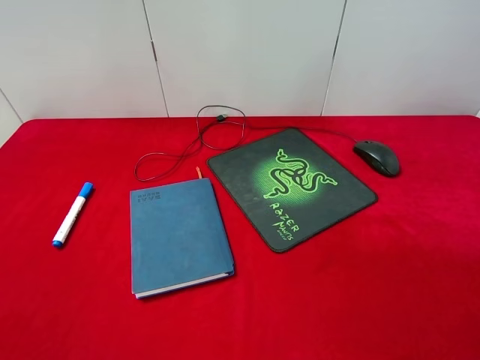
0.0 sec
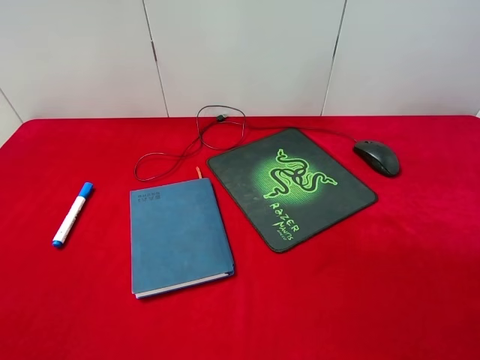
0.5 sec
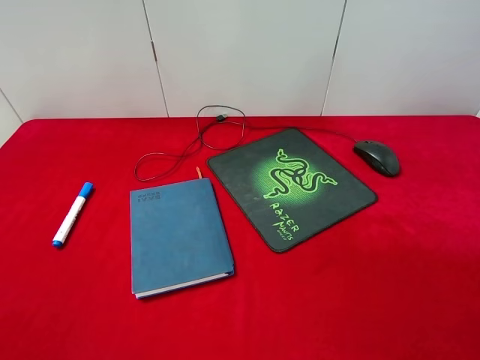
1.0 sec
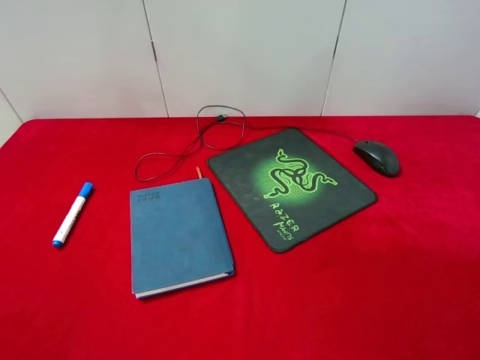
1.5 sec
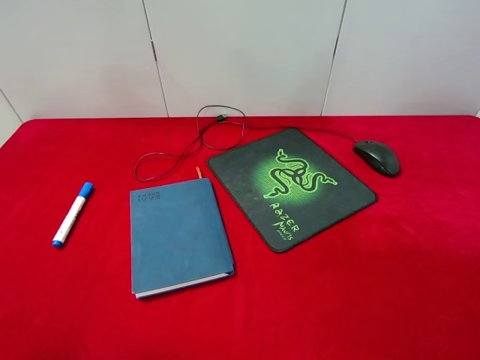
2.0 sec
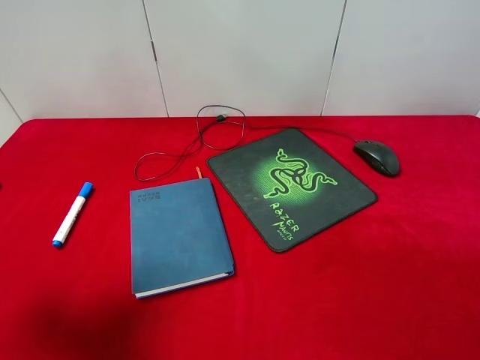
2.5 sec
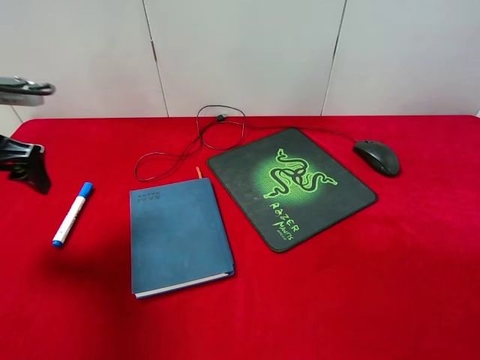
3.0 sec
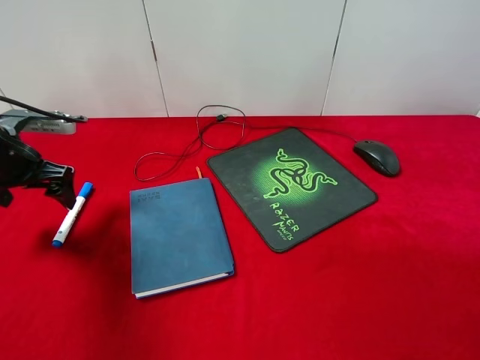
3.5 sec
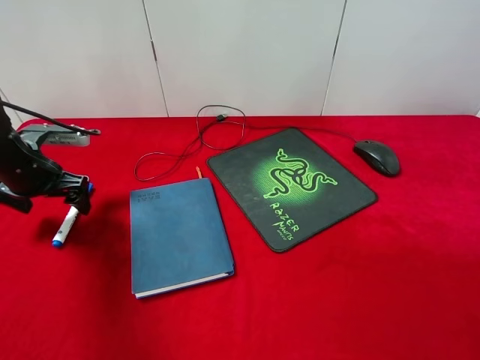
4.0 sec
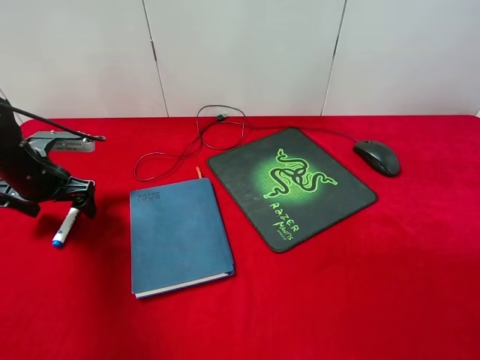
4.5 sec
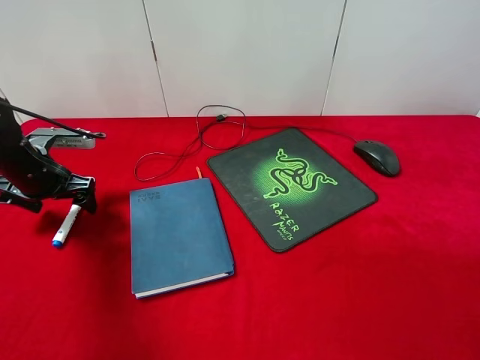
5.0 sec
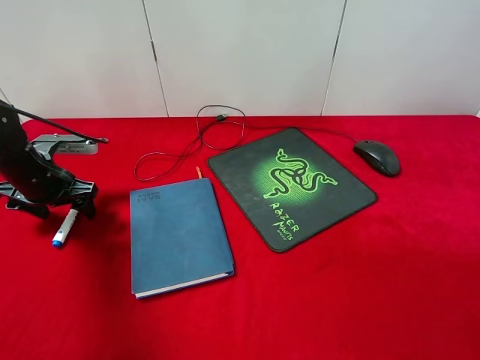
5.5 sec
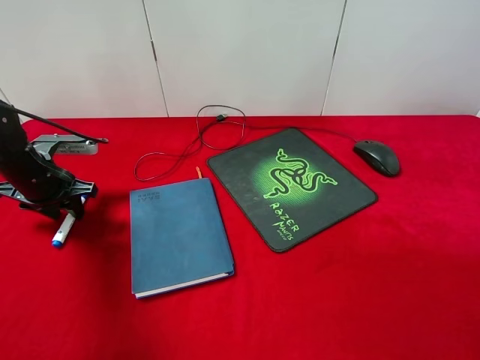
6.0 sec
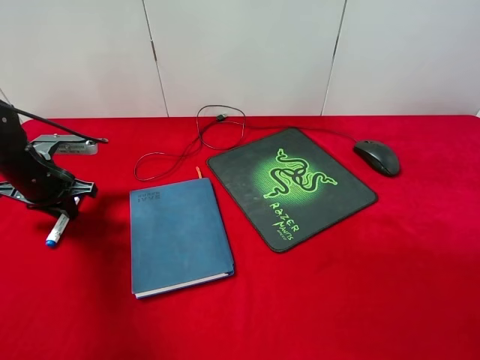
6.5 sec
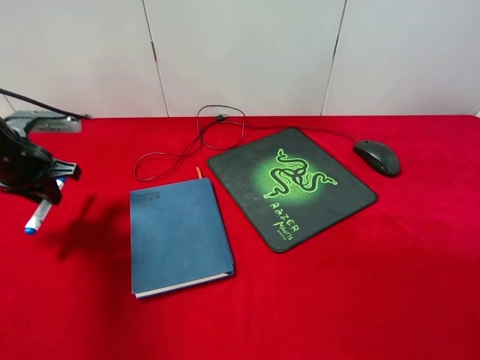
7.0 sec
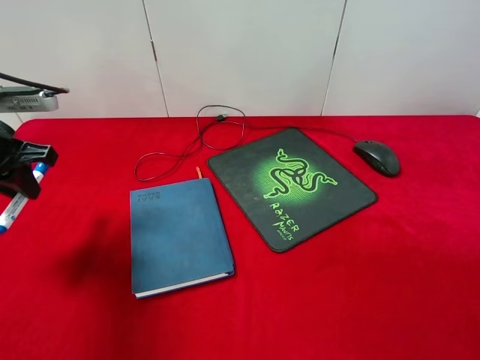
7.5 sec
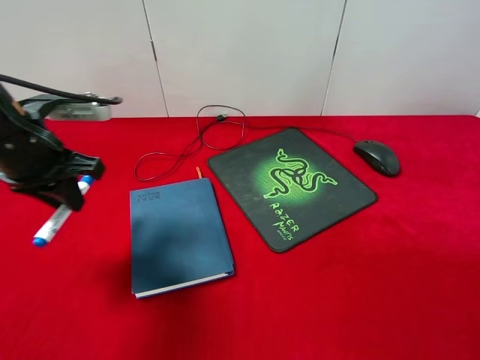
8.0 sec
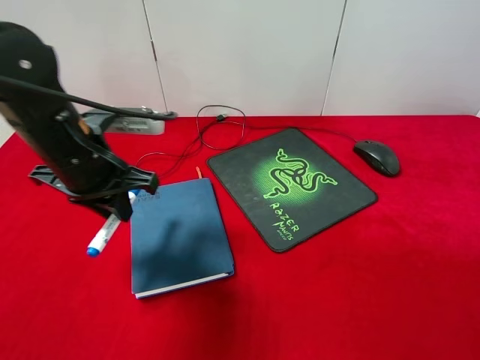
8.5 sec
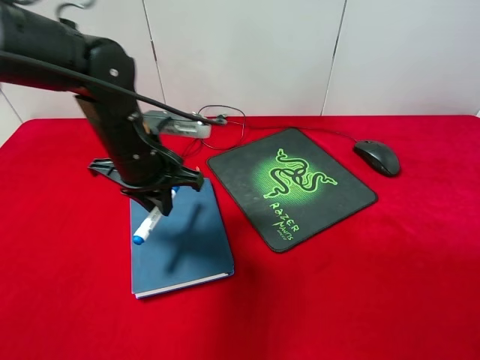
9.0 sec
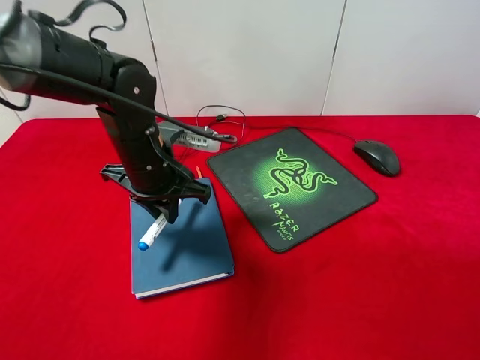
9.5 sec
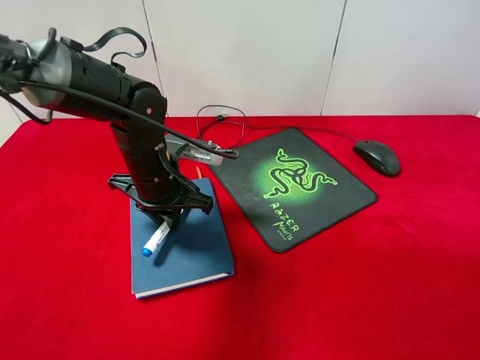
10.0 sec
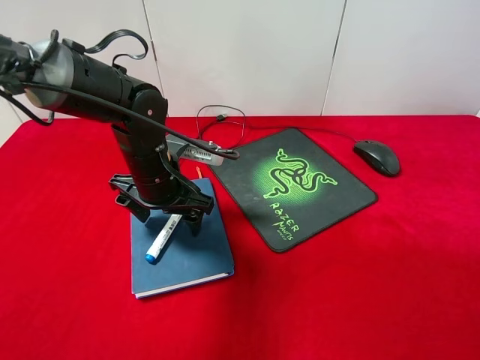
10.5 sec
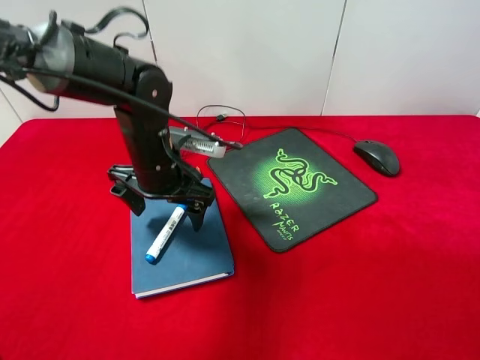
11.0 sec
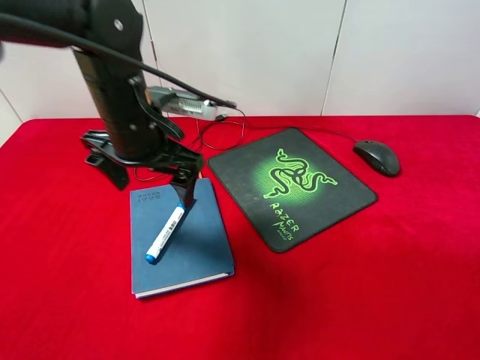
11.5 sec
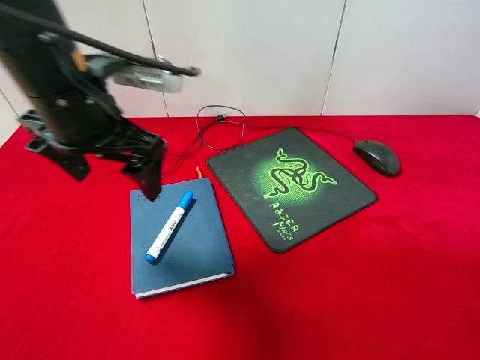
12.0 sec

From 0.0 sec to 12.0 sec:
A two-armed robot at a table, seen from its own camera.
Step, from 0.0 sec to 6.5 sec: Pick up the marker pen with left gripper.
Step, from 7.0 sec to 10.5 sec: Place the marker pen on the notebook with left gripper.
From 2.0 sec to 4.0 sec: The left gripper shifts roughly 30 cm forward and downward.
From 4.0 sec to 6.0 sec: The left gripper closes its fingers.
From 6.0 sec to 8.0 sec: The left gripper travels upward, to the right and backward by about 15 cm.
From 8.0 sec to 10.0 sec: The left gripper travels to the right and downward by roughly 15 cm.
From 10.0 sec to 12.0 sec: The left gripper heads upward and backward, covering approximately 15 cm, and opens its fingers.

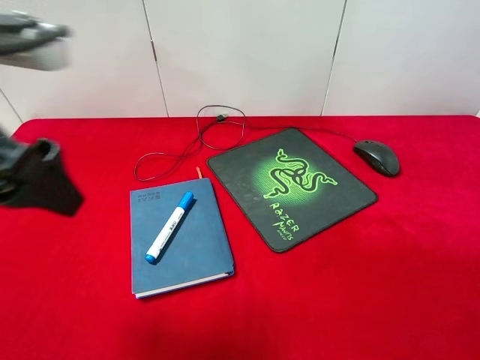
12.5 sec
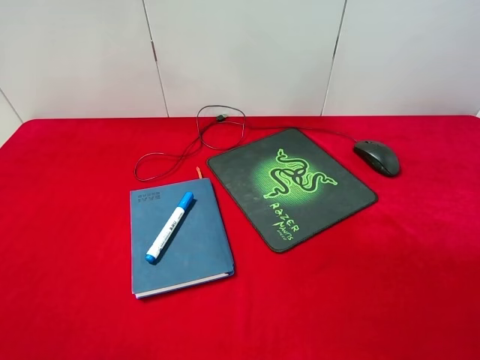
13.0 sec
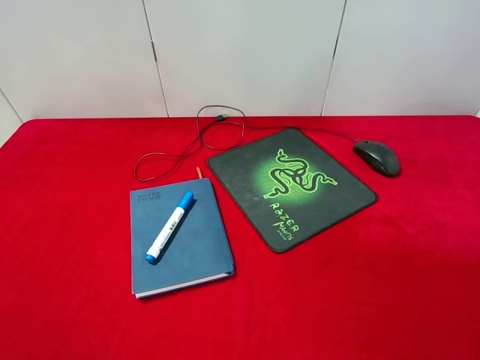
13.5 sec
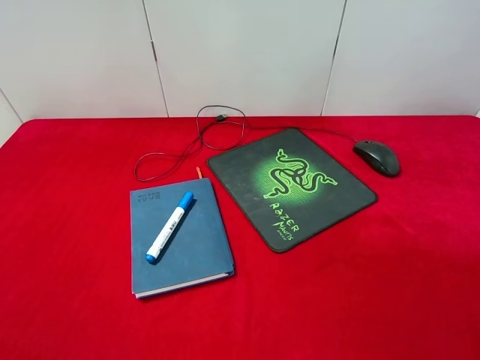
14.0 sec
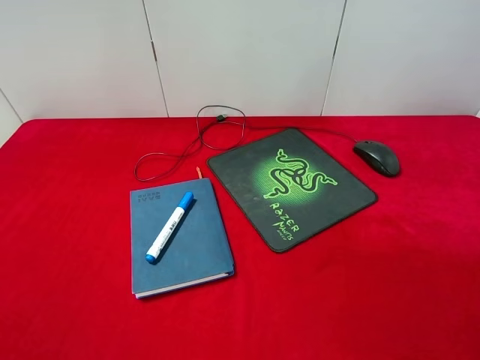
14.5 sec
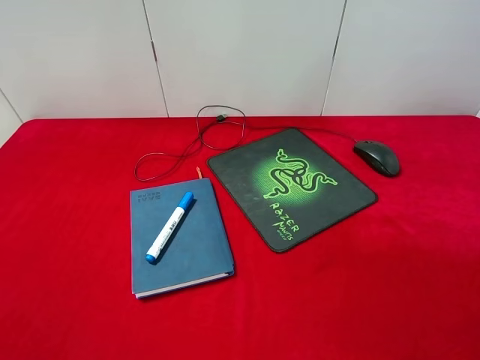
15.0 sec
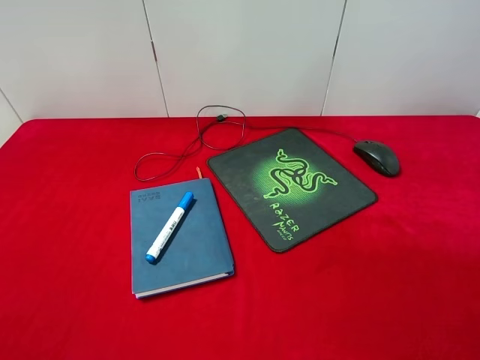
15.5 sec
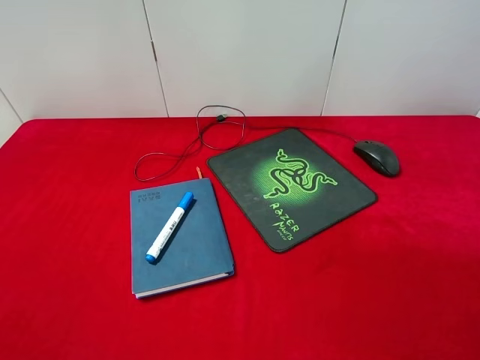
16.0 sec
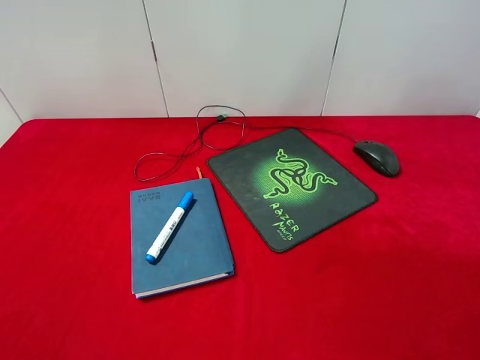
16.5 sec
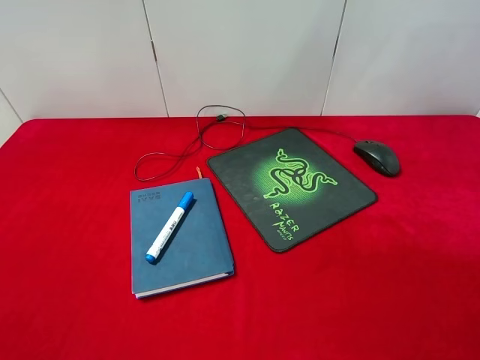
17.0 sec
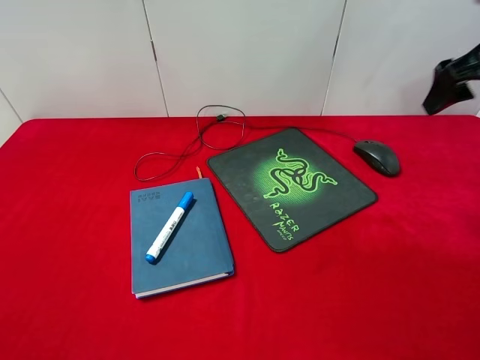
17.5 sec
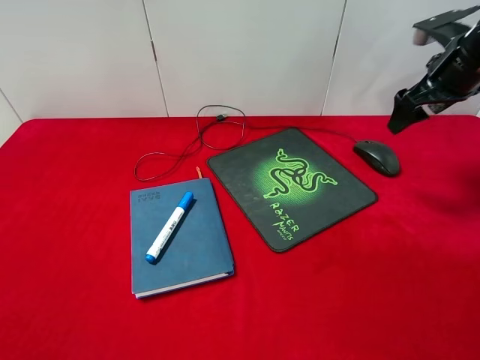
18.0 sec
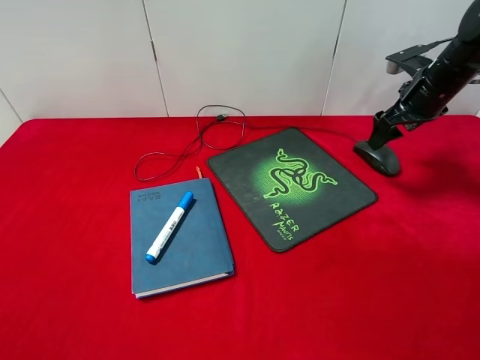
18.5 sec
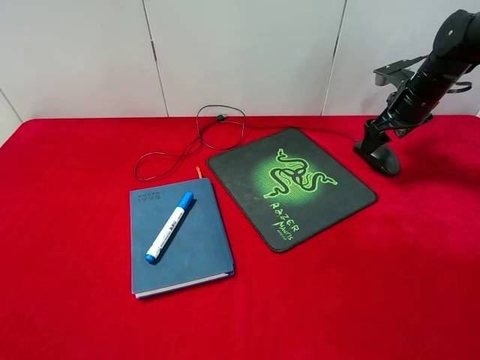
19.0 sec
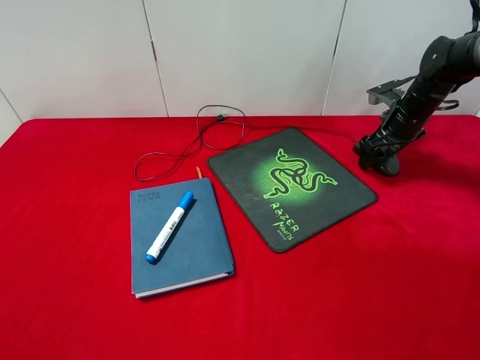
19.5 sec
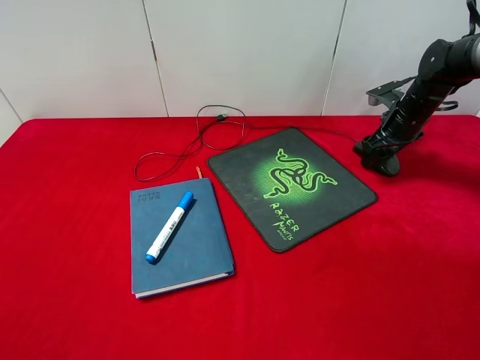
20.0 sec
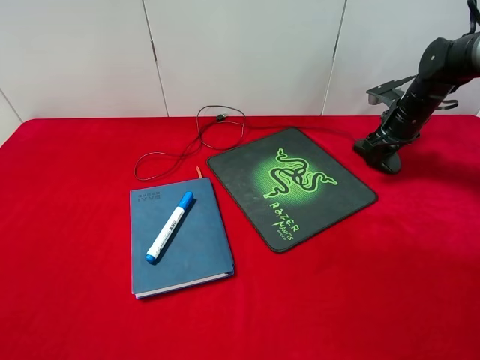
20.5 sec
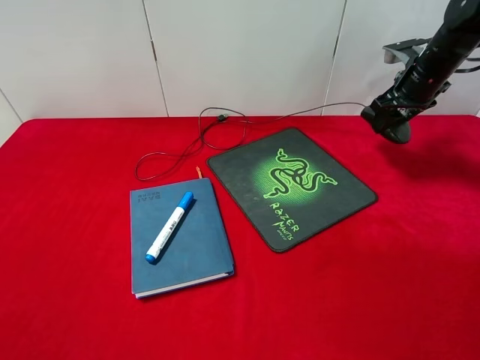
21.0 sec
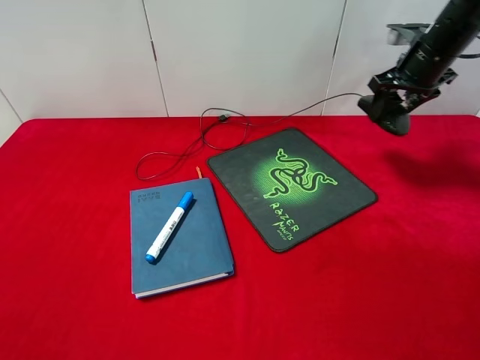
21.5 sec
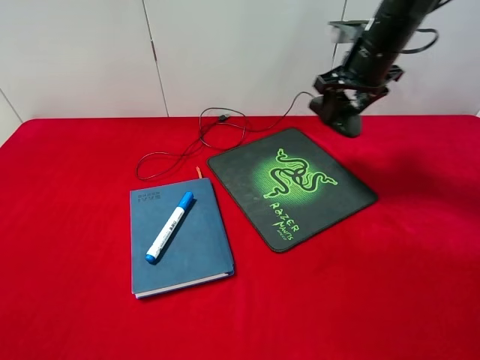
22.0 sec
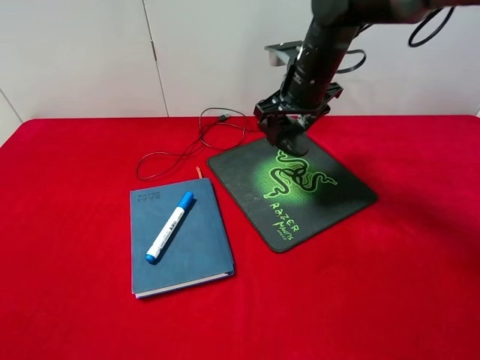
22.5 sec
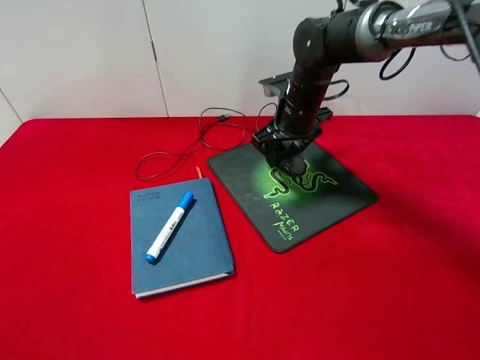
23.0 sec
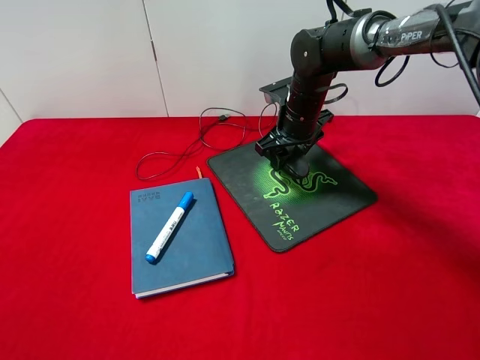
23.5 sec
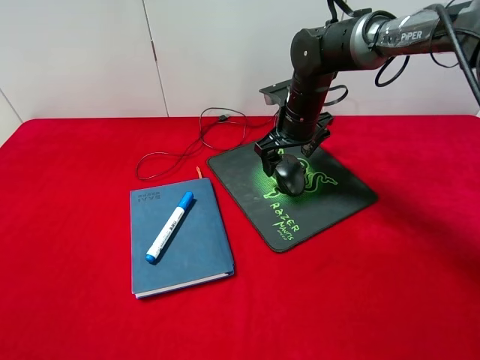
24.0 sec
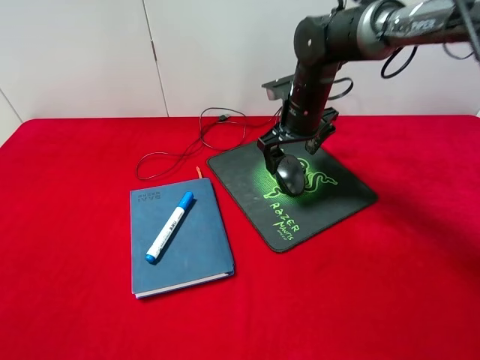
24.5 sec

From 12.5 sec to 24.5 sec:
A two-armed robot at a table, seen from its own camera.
Step, from 12.5 sec to 20.5 sec: Pick up the mouse with right gripper.
Step, from 21.0 sec to 24.0 sec: Place the mouse on the mouse pad with right gripper.
From 12.5 sec to 14.5 sec: The left gripper is displaced backward and to the left by roughly 20 cm.
From 16.5 sec to 18.5 sec: The right gripper moves forward, approximately 35 cm.
From 18.5 sec to 20.5 sec: The right gripper heads downward, covering roughly 5 cm, and closes.
From 20.5 sec to 22.5 sec: The right gripper is displaced to the left by some 20 cm.
From 22.5 sec to 24.5 sec: The right gripper opens.

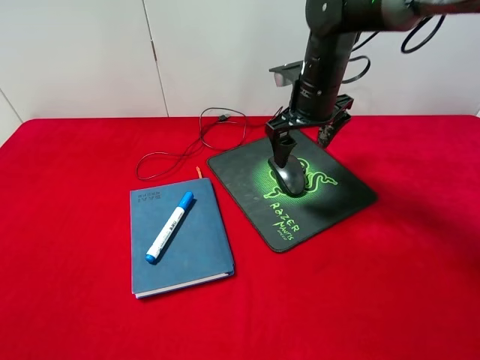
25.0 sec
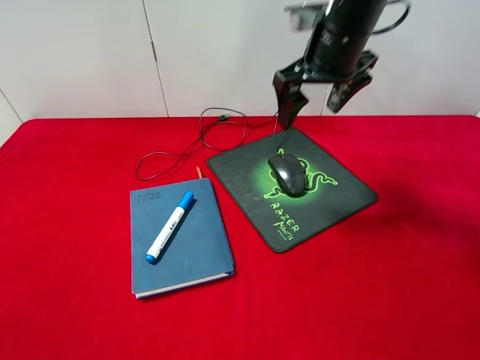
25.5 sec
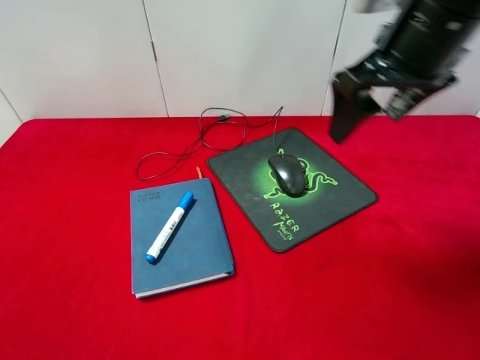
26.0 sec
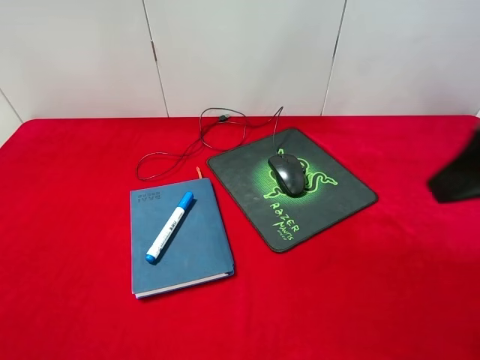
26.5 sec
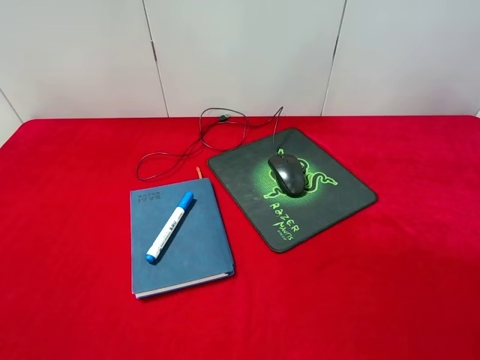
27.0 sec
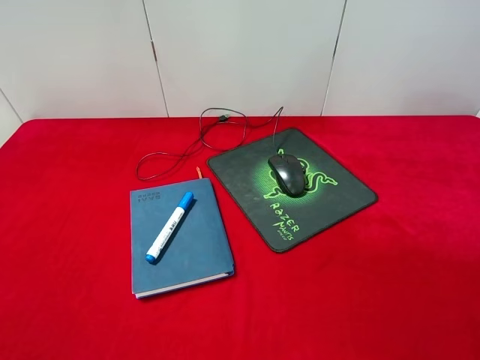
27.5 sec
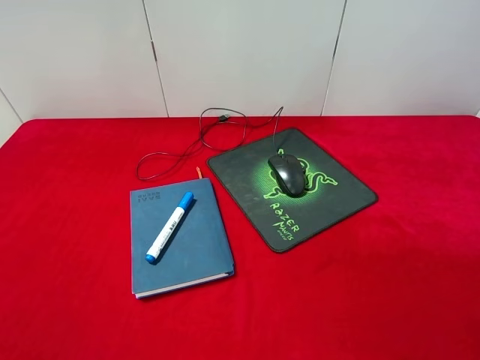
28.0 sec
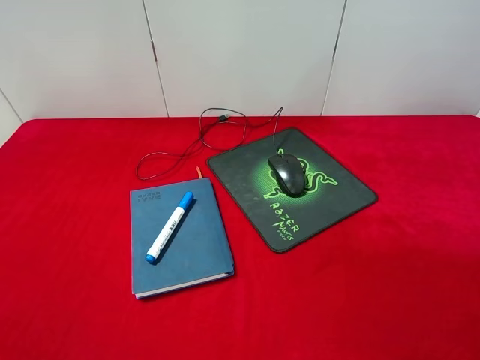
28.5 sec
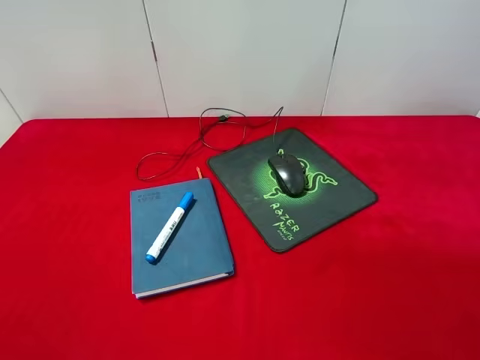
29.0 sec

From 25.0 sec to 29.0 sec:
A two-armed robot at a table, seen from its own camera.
From 25.0 sec to 27.0 sec: The right gripper moves backward and to the right, roughly 40 cm.
